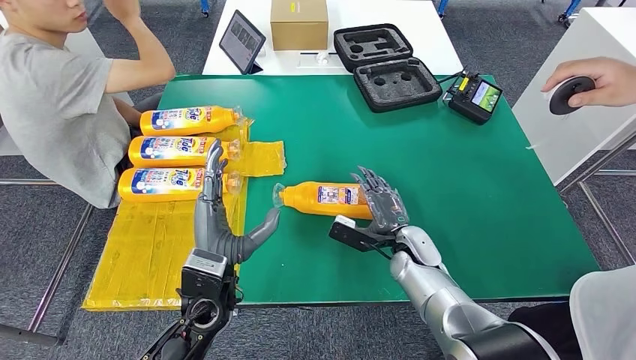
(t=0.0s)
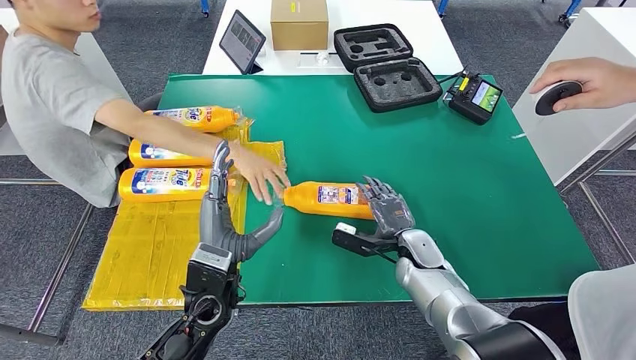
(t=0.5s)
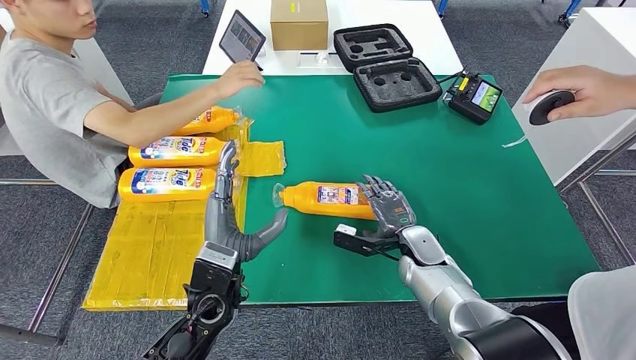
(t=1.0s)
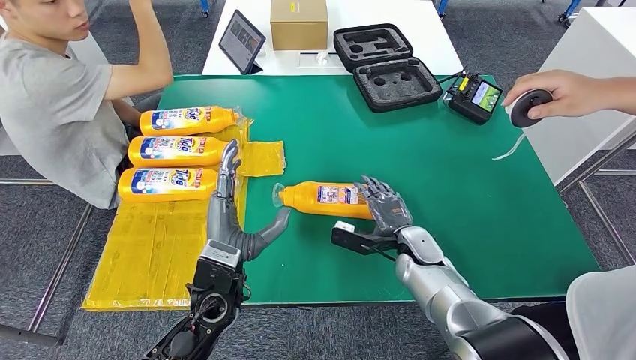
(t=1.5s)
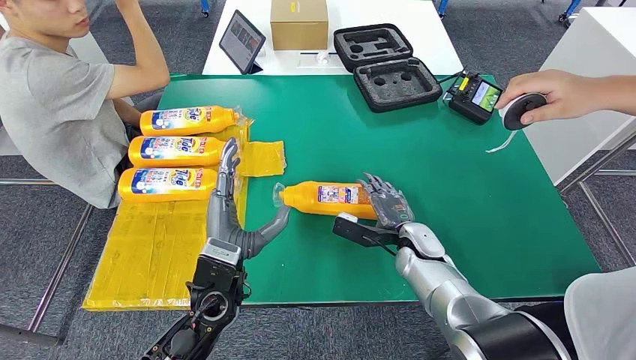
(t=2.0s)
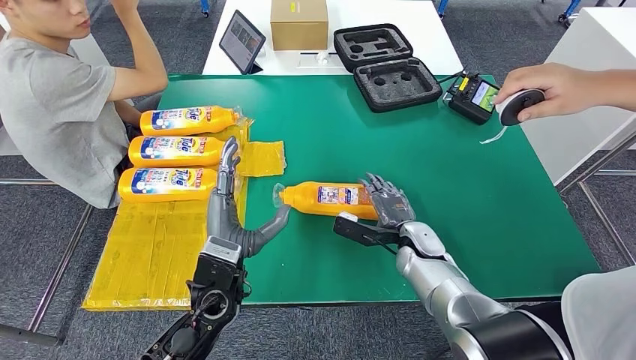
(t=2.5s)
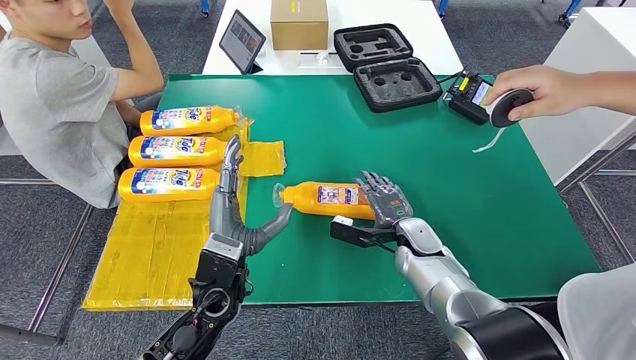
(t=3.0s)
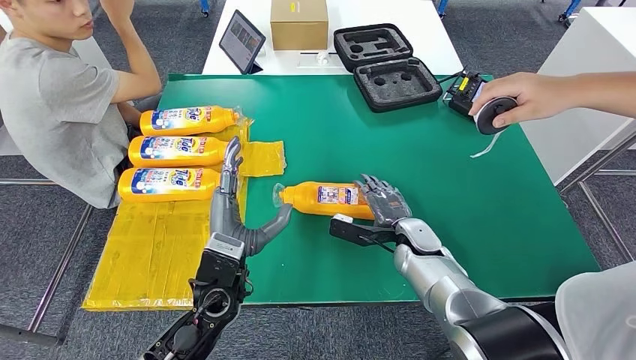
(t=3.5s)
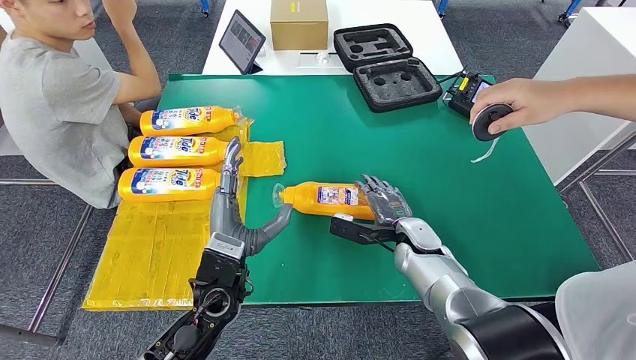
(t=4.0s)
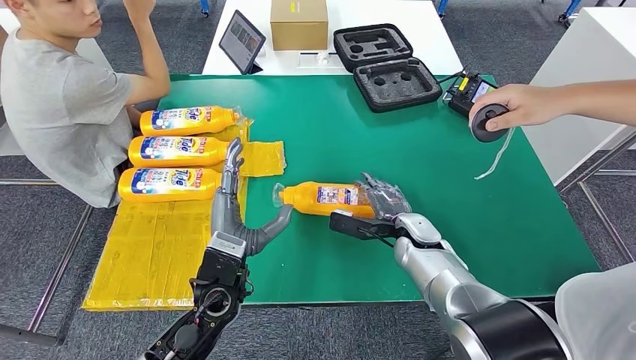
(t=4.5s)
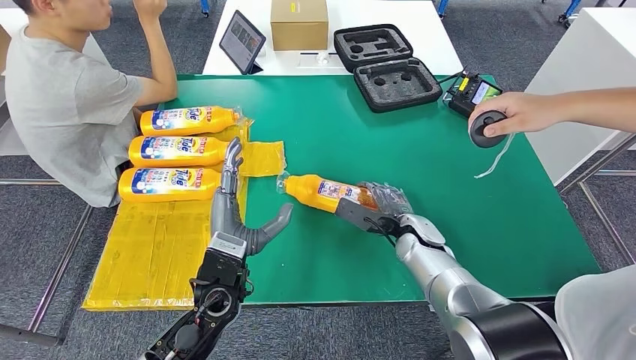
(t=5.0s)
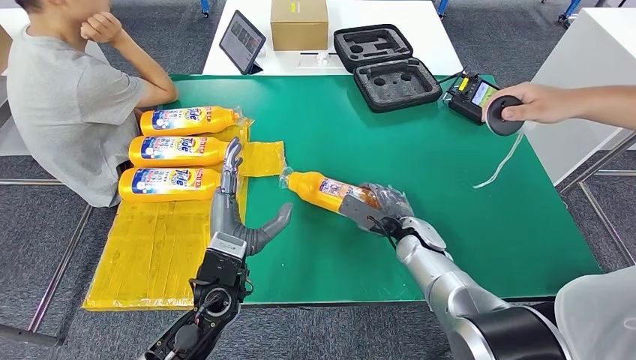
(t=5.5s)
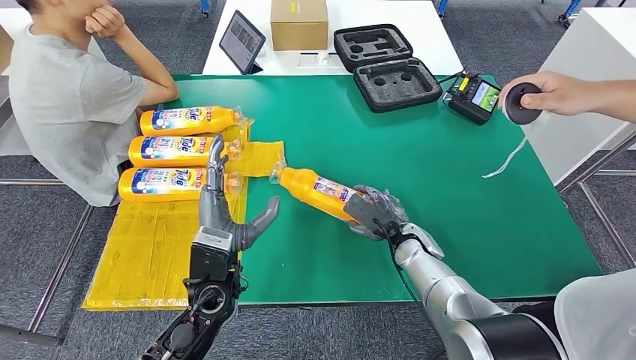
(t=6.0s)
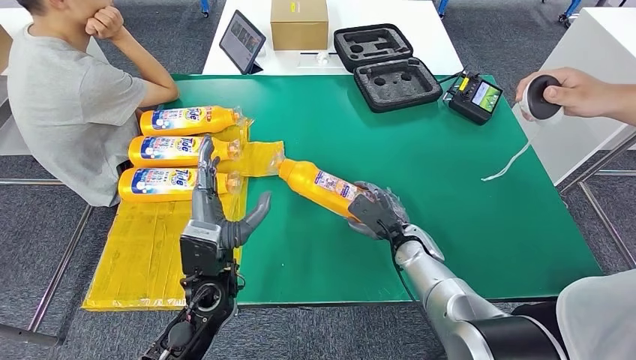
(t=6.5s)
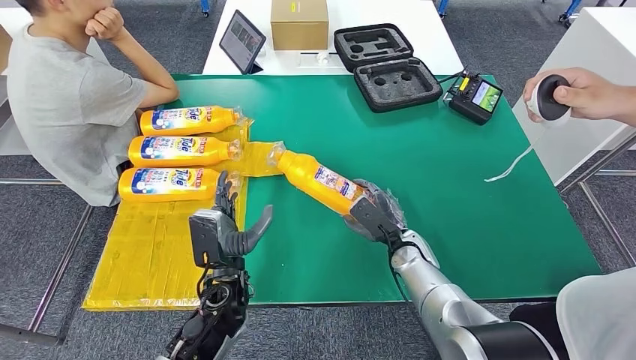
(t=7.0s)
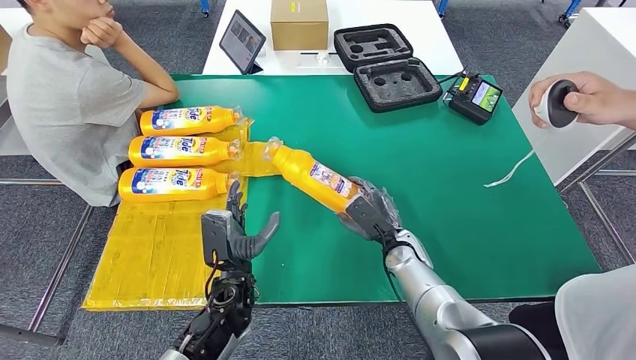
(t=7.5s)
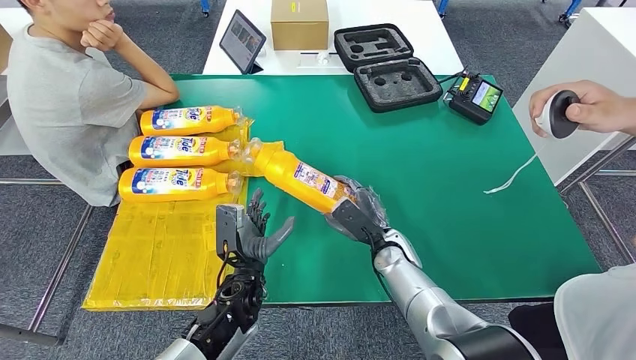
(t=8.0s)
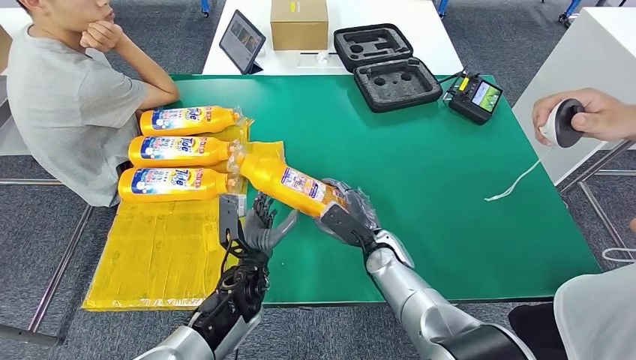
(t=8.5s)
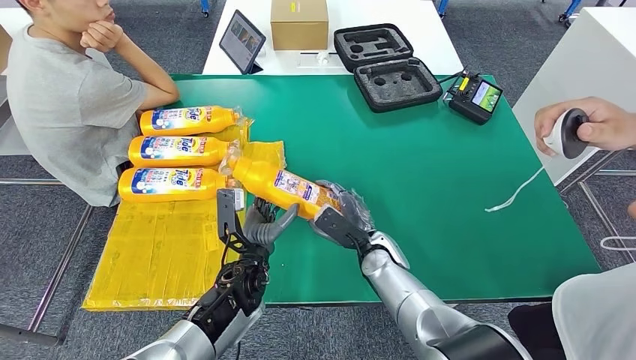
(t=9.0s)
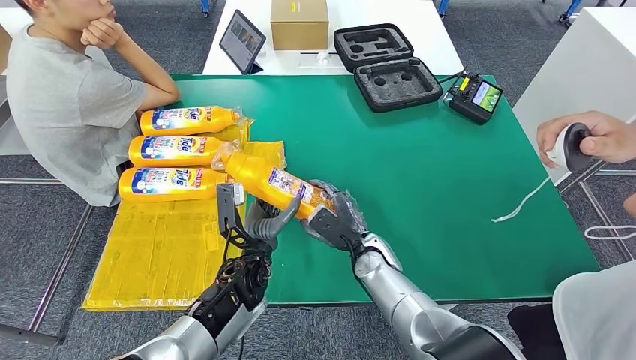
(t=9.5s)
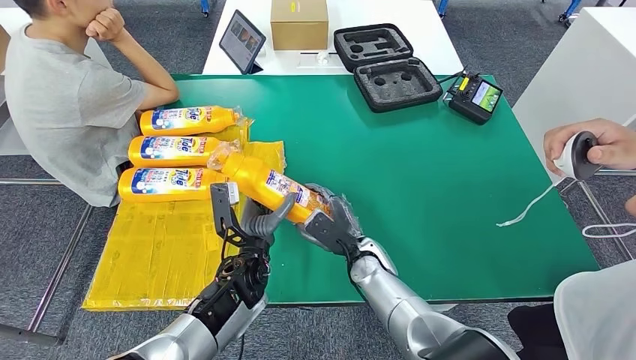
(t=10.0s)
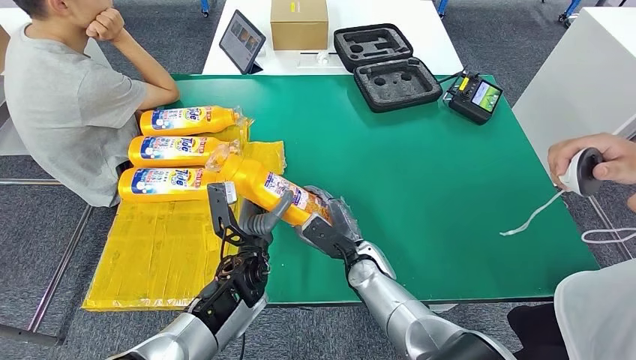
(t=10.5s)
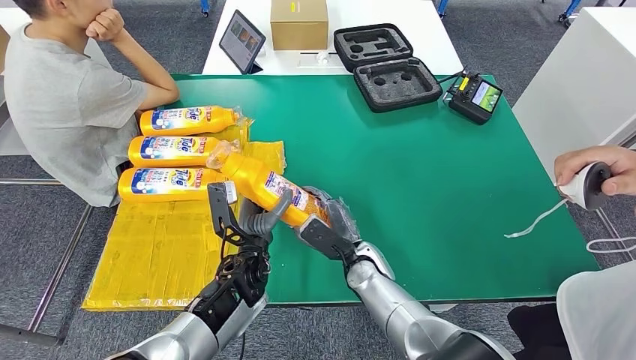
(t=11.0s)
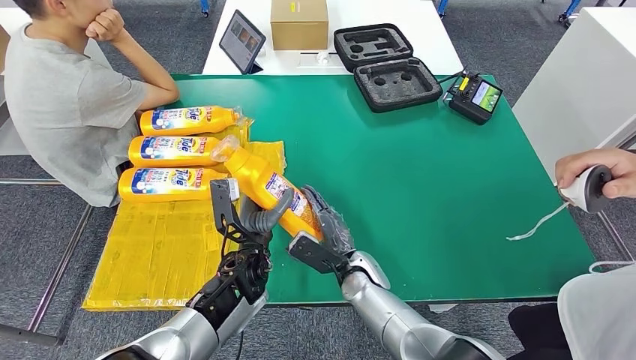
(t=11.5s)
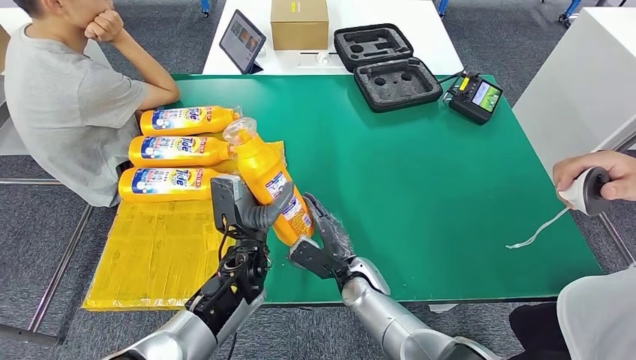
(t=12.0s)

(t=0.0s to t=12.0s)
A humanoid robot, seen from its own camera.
Step, t=0.0s - t=9.5s: Pick up the bottle from the table.
t=0.0s - t=4.0s: The hands move only a little.
t=6.0s - t=8.0s: The left hand heads downward, covering roughly 10 cm.
t=8.0s - t=10.0s: The right hand heads to the left, covering some 5 cm.
t=10.0s - t=12.0s: There are only small adjustments of the hands.

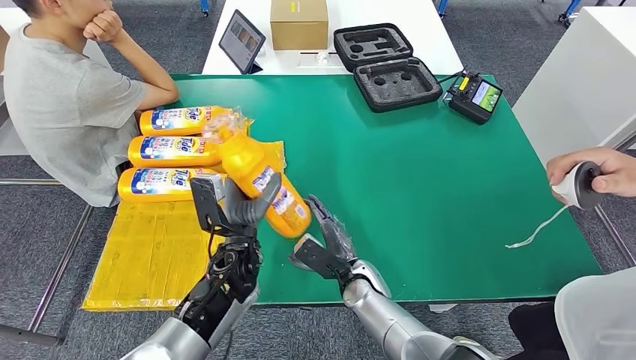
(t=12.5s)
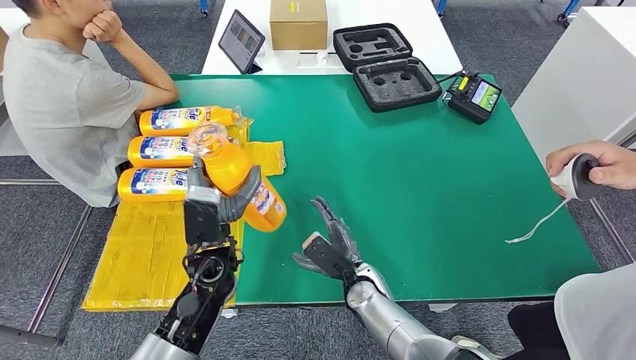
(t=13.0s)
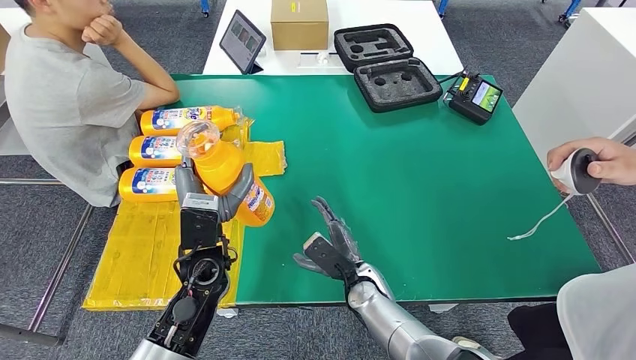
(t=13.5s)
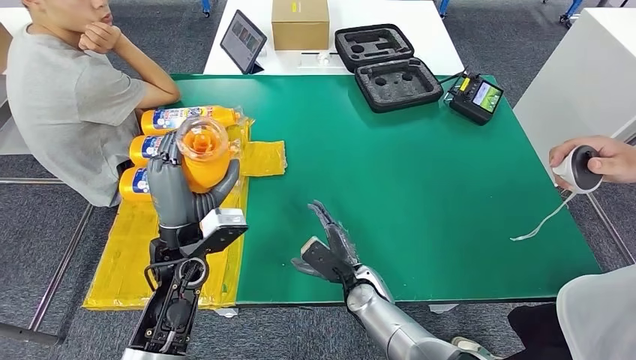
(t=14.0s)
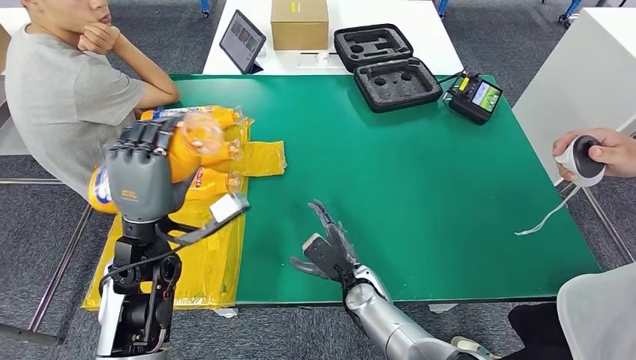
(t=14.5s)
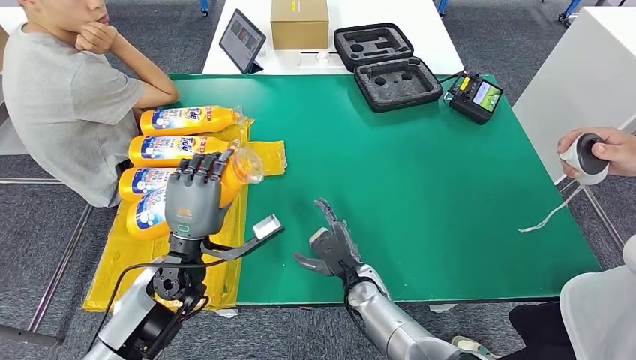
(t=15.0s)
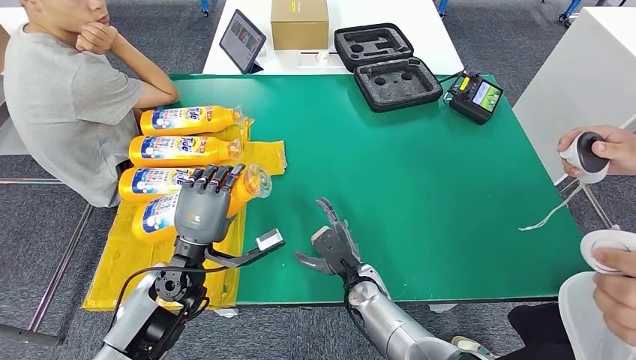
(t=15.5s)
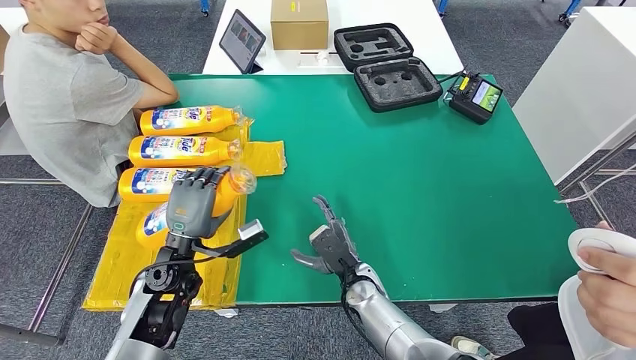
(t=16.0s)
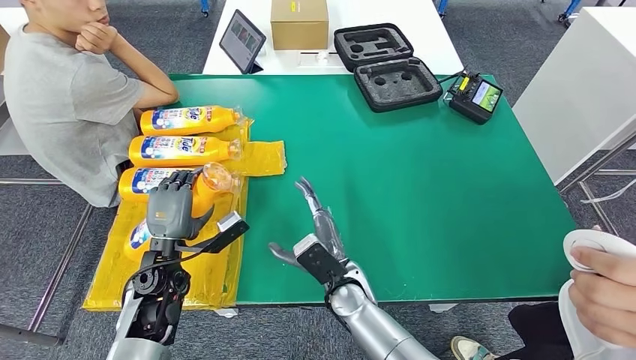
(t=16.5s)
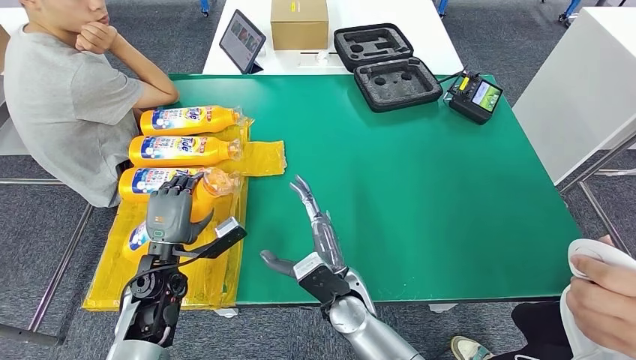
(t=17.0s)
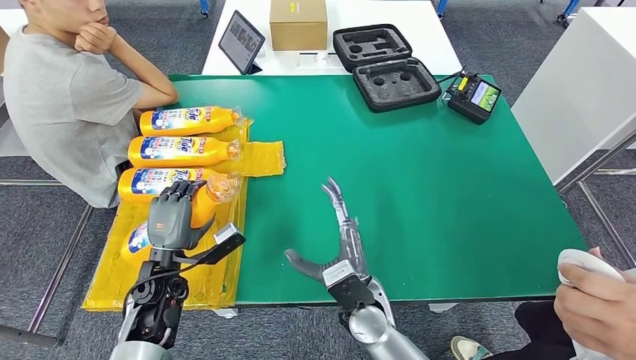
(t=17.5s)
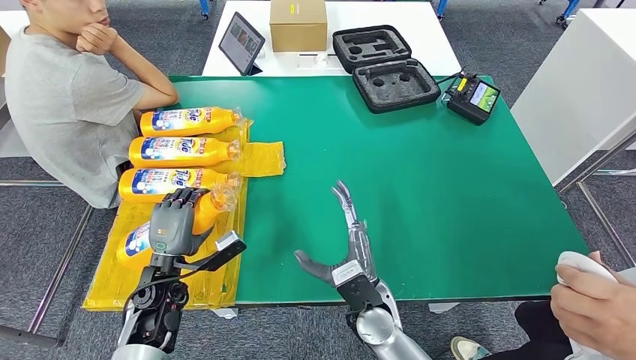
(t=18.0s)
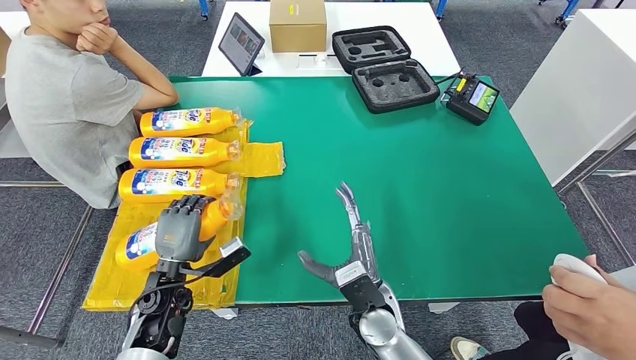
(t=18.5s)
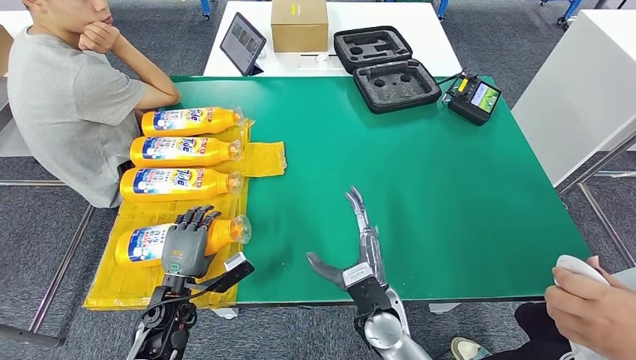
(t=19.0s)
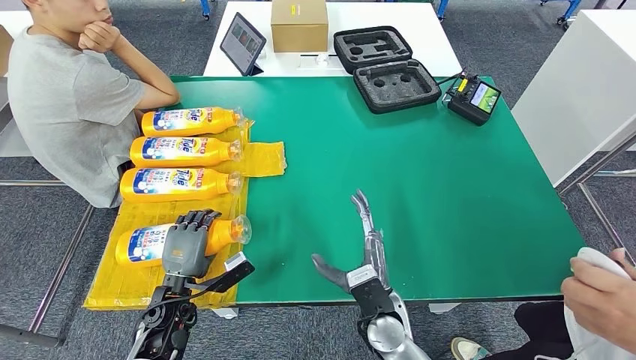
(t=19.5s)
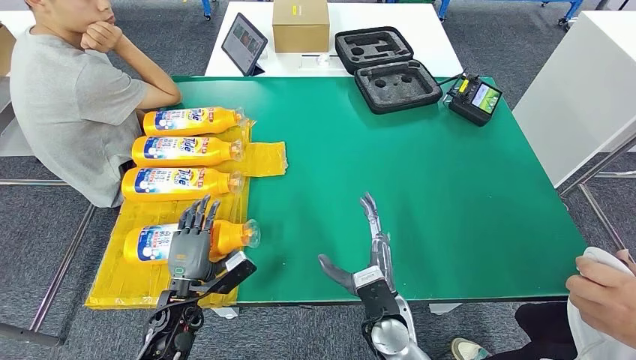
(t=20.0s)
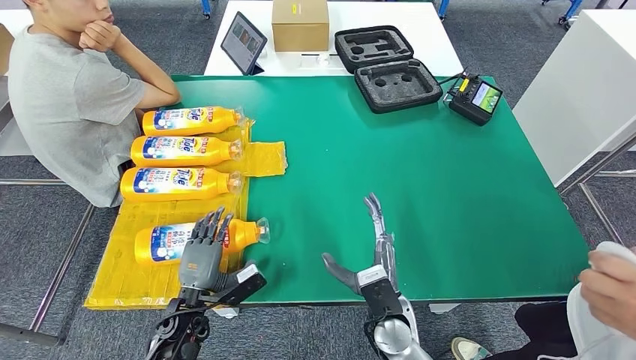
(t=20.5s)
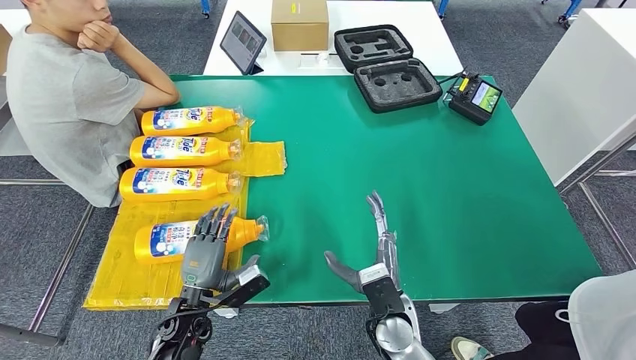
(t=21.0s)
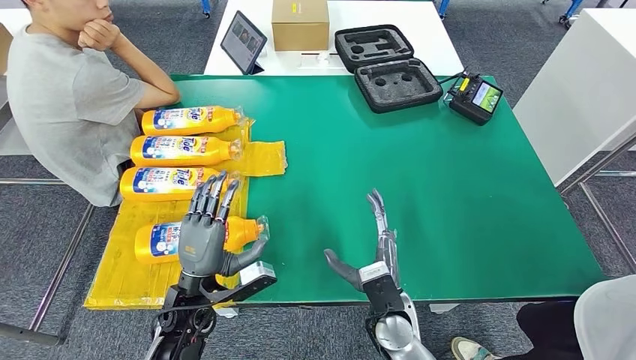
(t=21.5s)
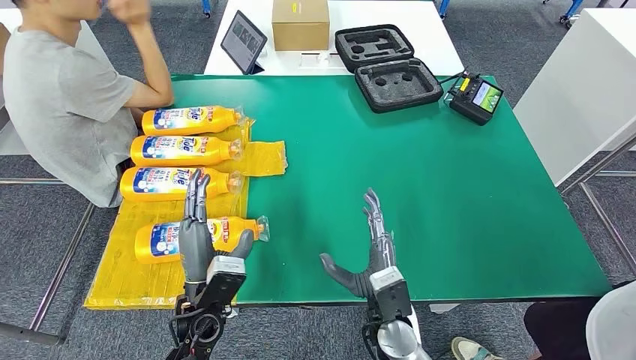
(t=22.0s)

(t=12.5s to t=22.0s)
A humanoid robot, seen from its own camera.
Step, t=12.5s - t=22.0s: Flip the bottle to face forward.
t=14.5s - t=16.5s: The right hand moves about 5 cm, while the left hand travels downward by roughly 10 cm.
t=16.5s - t=18.0s: The right hand changes place by about 5 cm.
t=18.0s - t=20.0s: The left hand changes place by some 5 cm.
t=20.0s - t=22.0s: The left hand heads upward and to the right, covering roughly 10 cm.
